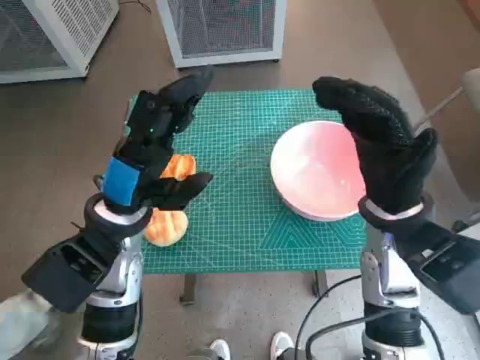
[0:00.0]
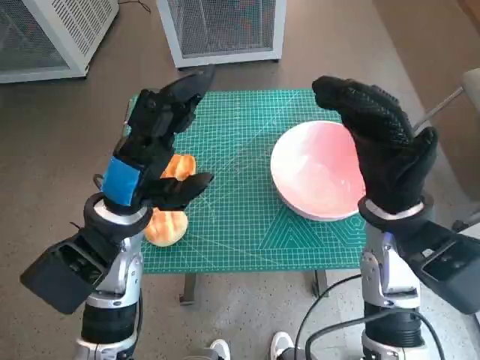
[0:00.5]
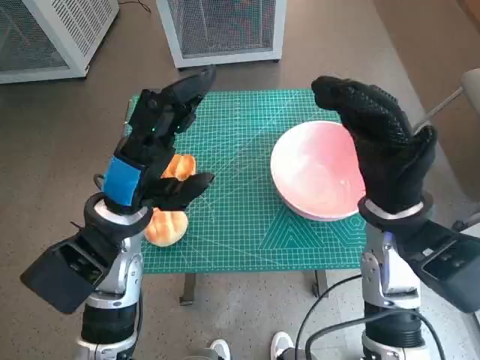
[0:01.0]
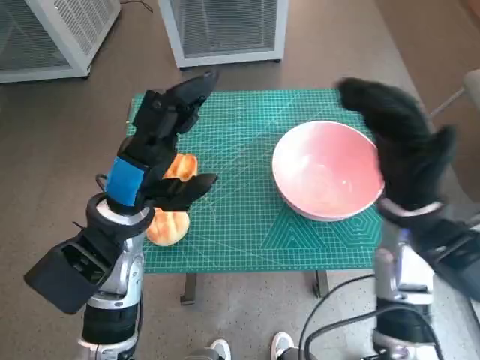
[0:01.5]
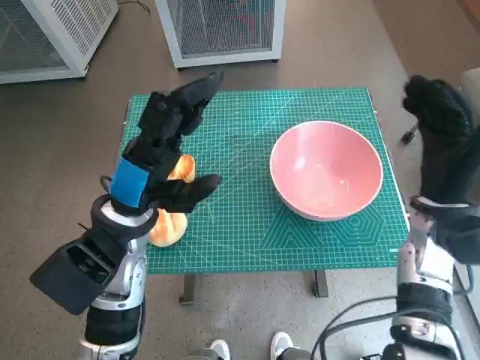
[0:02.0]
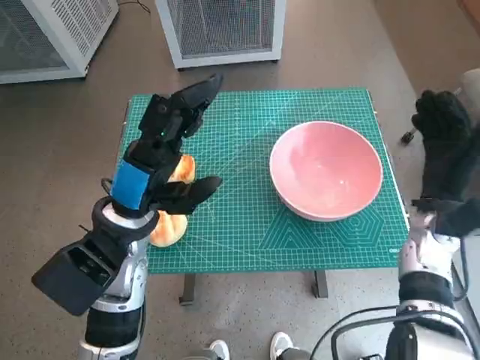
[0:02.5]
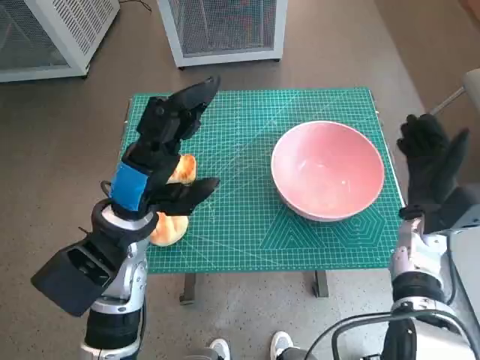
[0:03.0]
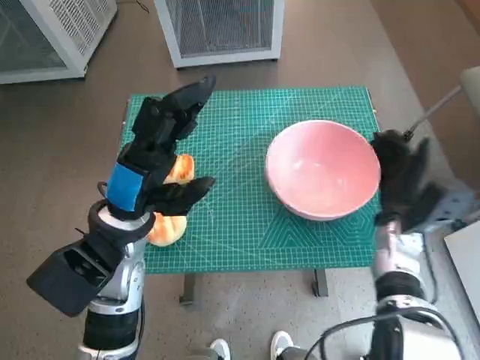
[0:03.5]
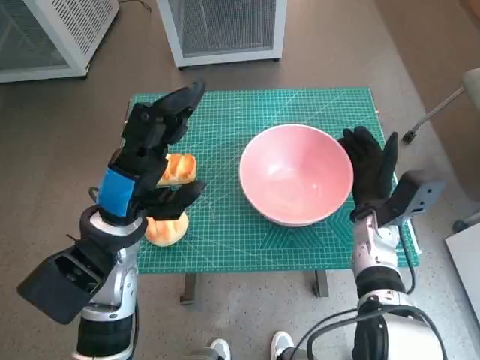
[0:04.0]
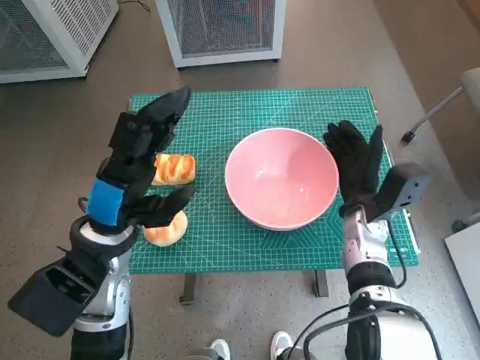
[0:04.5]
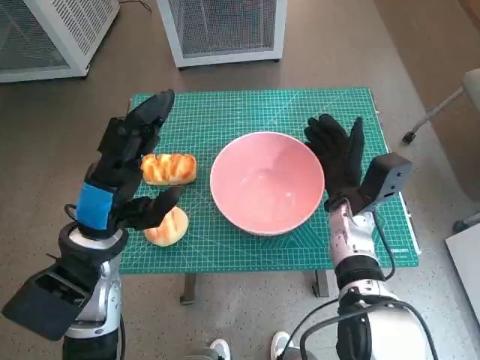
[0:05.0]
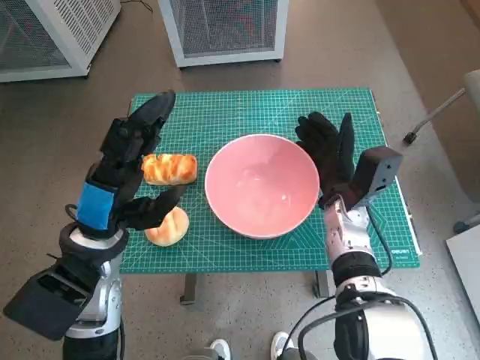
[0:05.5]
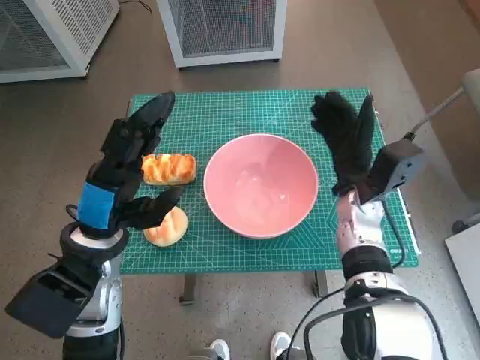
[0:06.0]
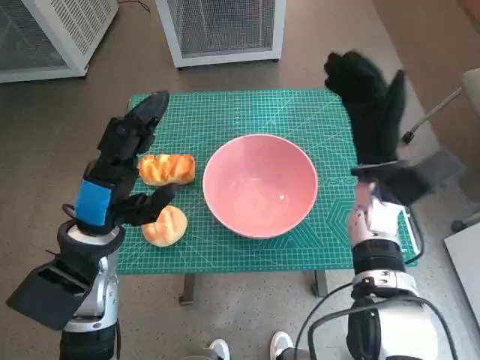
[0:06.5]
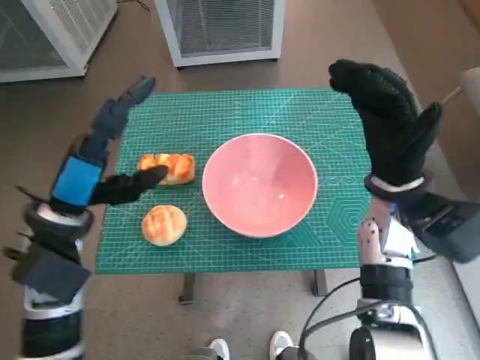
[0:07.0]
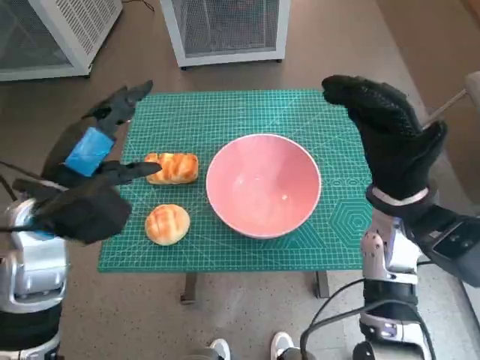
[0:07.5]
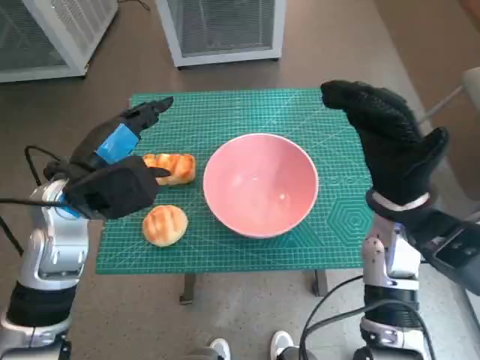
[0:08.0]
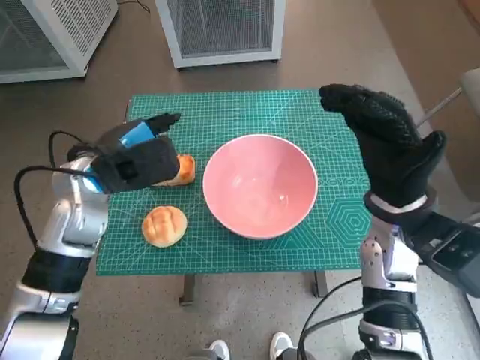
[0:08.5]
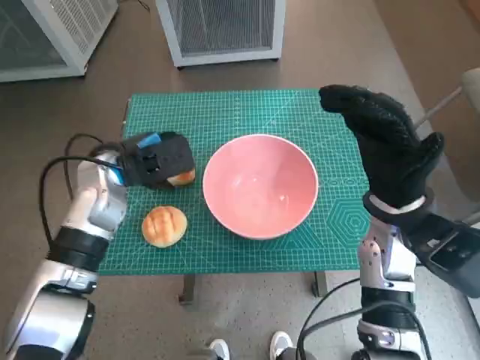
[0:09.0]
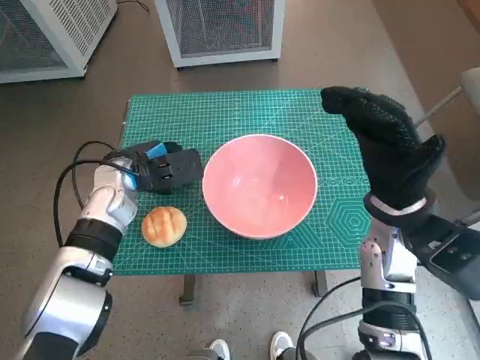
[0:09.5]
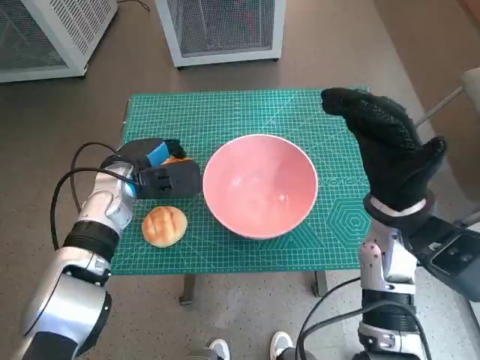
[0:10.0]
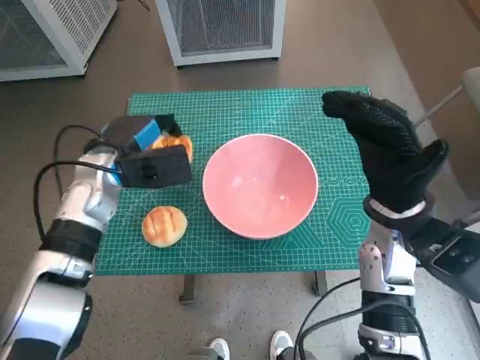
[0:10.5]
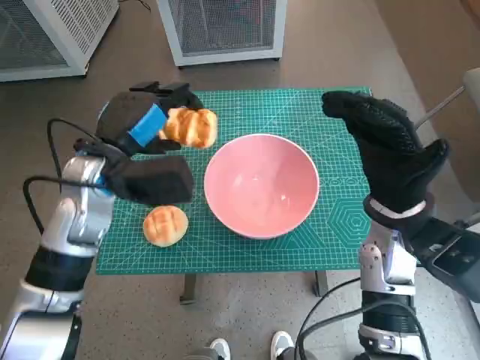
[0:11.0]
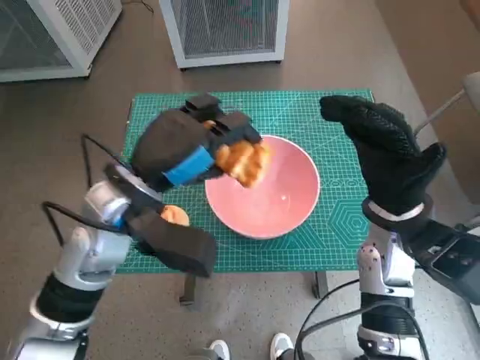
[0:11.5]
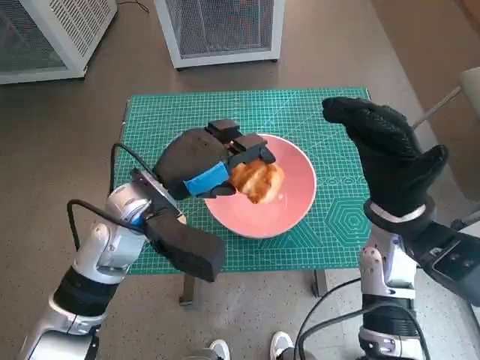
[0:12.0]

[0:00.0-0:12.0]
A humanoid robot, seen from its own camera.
Task of the whole recording: Push the bowl into the center of the table and put the bread into the bowl.
Step, 0:00.0 to 0:05.5: Move the pink bowl to the center of table with right hand.
Step, 0:06.0 to 0:09.5: Grasp the long bread with left hand.
0:02.0 to 0:04.0: The right hand moves downward, about 10 cm.
0:04.0 to 0:06.0: The right hand shifts by some 5 cm.
0:06.0 to 0:08.0: The right hand shifts some 10 cm upward and backward, while the left hand moves about 5 cm.
0:08.0 to 0:10.0: The left hand moves downward and forward, about 10 cm.
0:10.0 to 0:12.0: The left hand goes about 10 cm backward, to the right and upward.

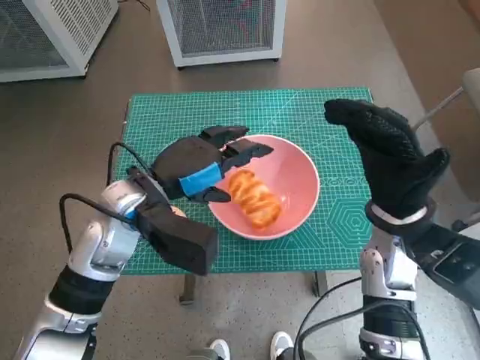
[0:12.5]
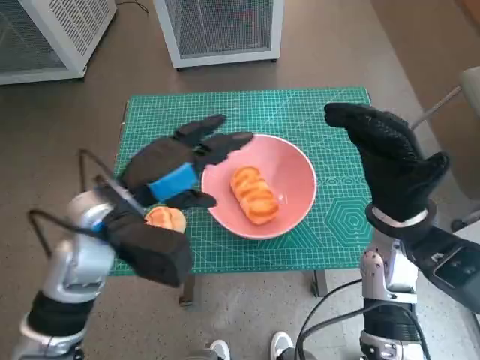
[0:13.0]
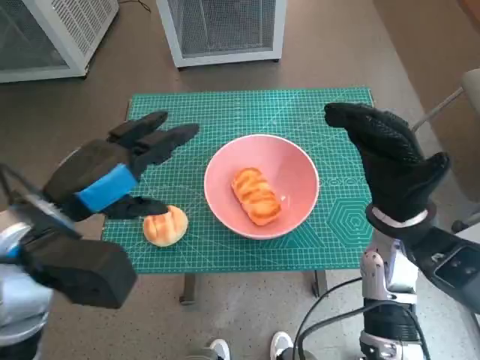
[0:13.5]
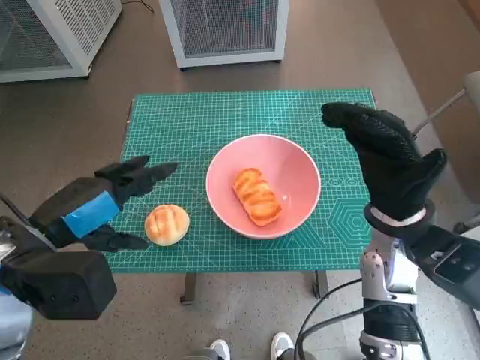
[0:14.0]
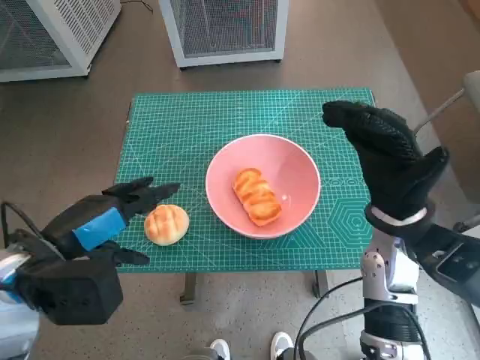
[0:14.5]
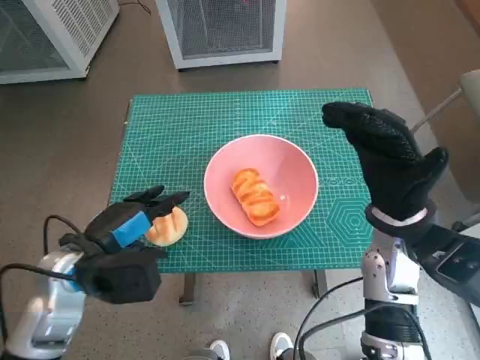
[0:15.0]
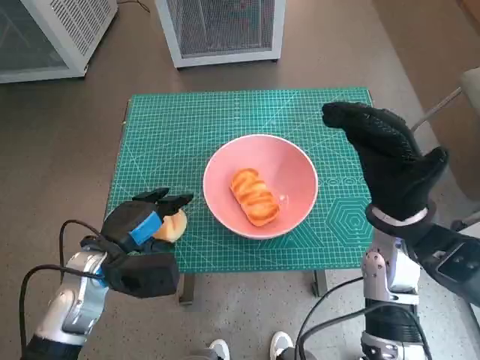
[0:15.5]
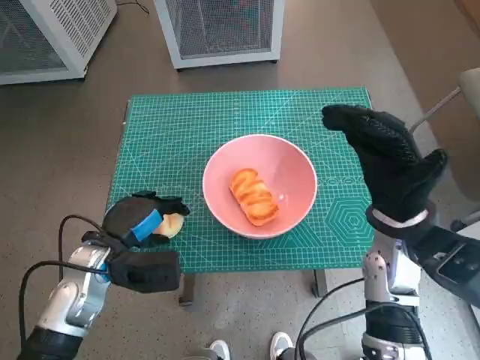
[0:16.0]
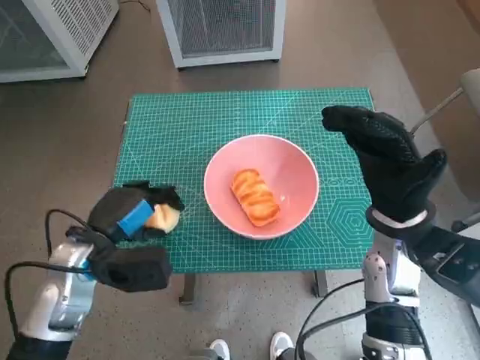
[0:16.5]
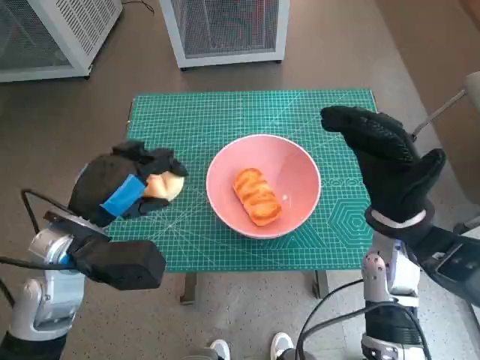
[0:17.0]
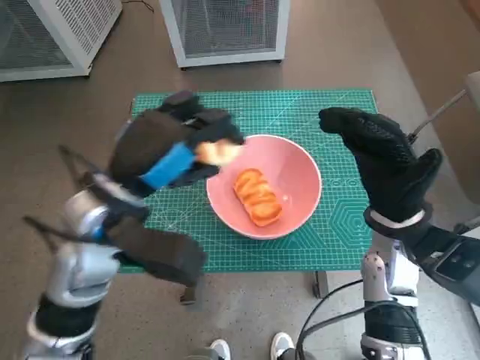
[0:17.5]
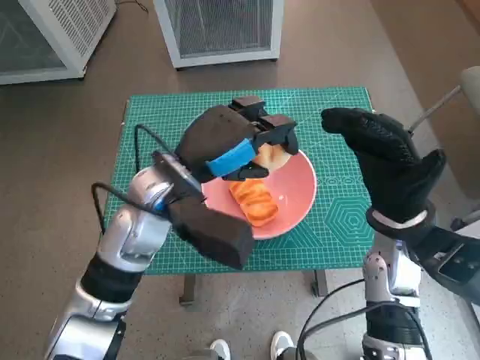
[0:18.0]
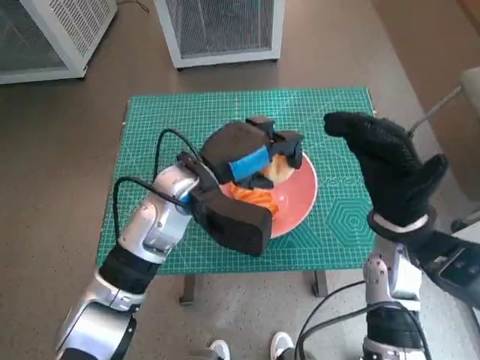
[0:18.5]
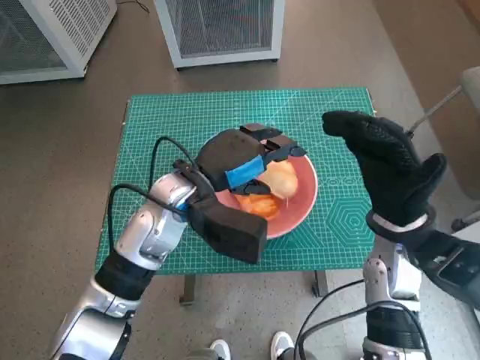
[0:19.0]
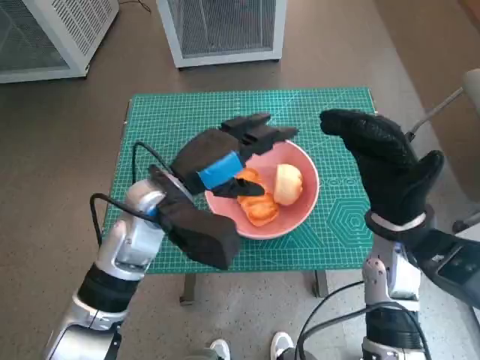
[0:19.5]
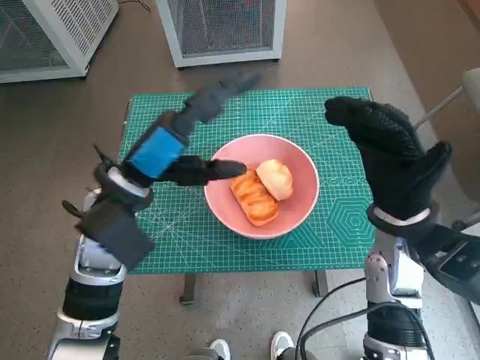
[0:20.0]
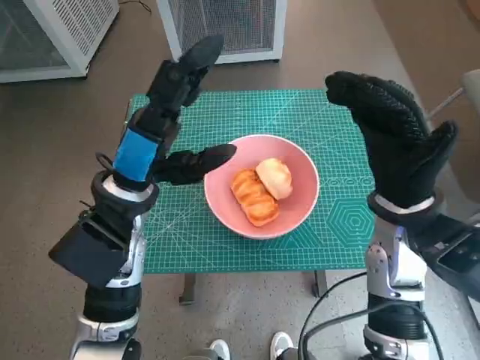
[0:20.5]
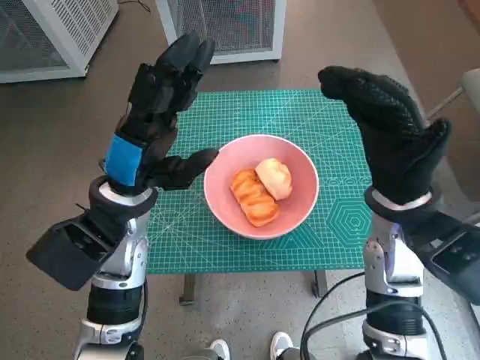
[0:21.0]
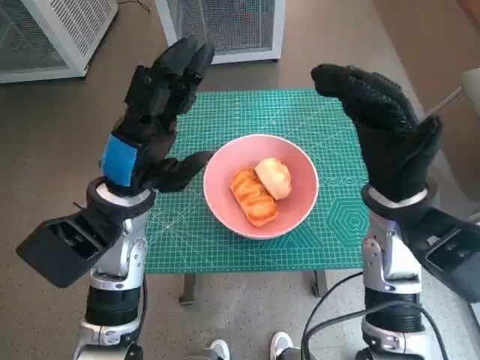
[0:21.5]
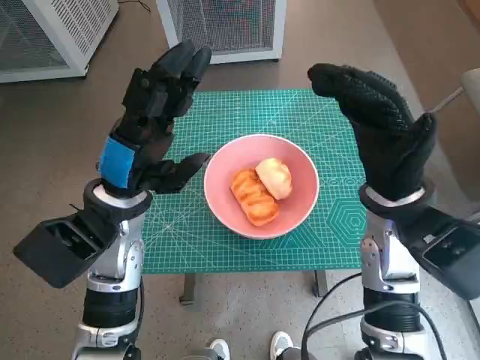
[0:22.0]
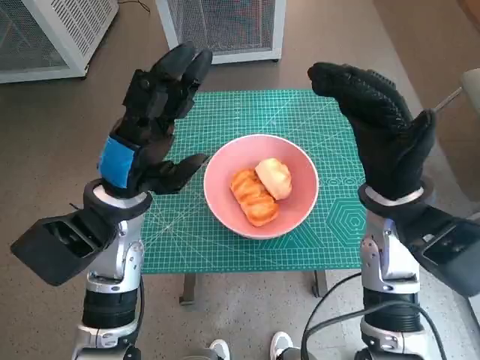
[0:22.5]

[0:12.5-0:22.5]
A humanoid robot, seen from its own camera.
Task of the whole recording: Push the bowl into the center of the table and put the bread into the bowl.
Step, 0:12.5 to 0:15.5: Grasp the round bread with left hand.
Step, 0:16.0 to 0:18.5: Place the round bread in pink bowl with left hand.
0:12.5 to 0:14.5: The left hand shifts roughly 15 cm backward and to the left.
0:14.5 to 0:16.5: The left hand travels downward by approximately 10 cm.
0:16.5 to 0:18.5: The left hand moves to the right, upward and forward, about 15 cm.
0:18.5 to 0:20.5: The left hand heads to the left, covering approximately 5 cm.
0:20.5 to 0:22.5: The hands make only small movements.
